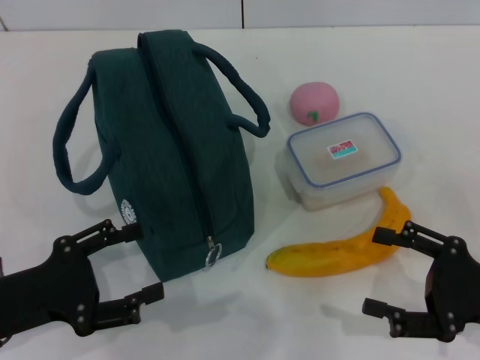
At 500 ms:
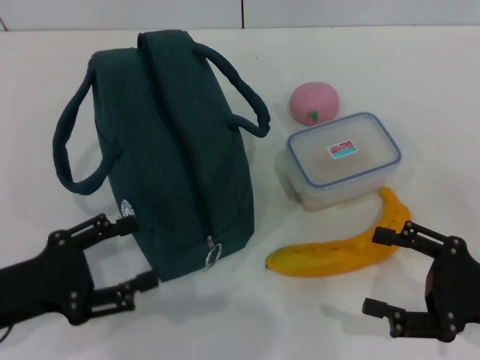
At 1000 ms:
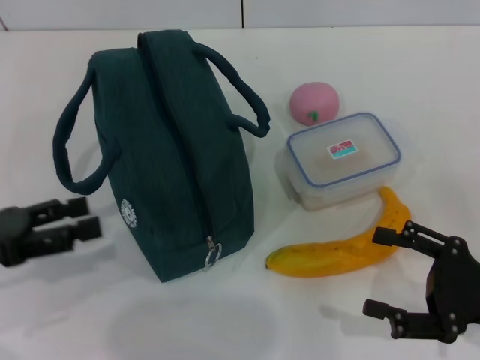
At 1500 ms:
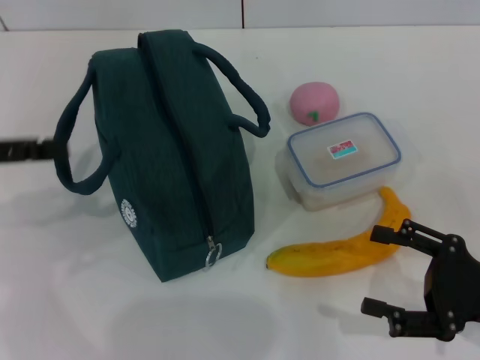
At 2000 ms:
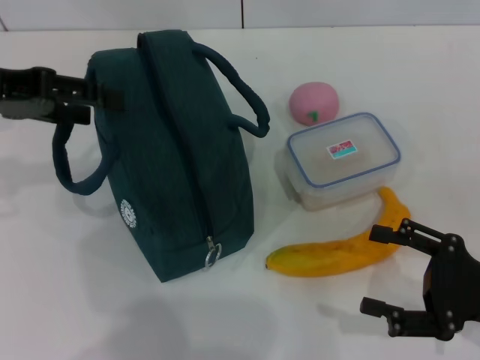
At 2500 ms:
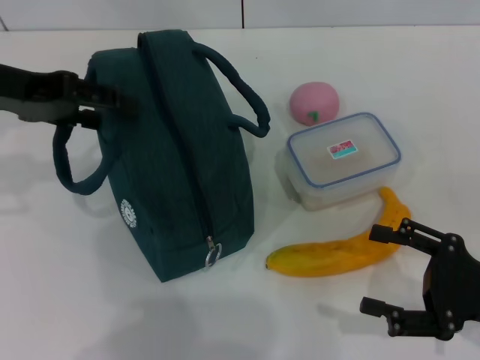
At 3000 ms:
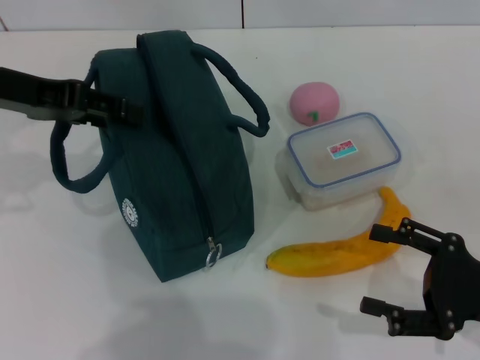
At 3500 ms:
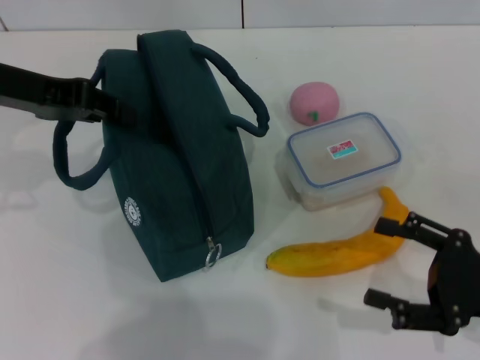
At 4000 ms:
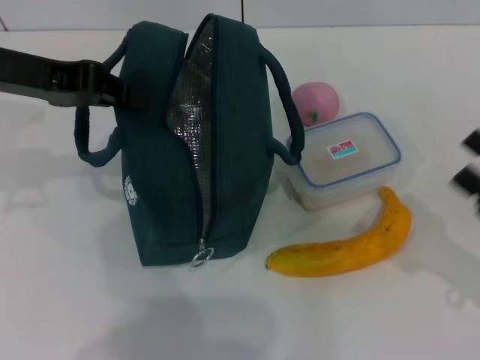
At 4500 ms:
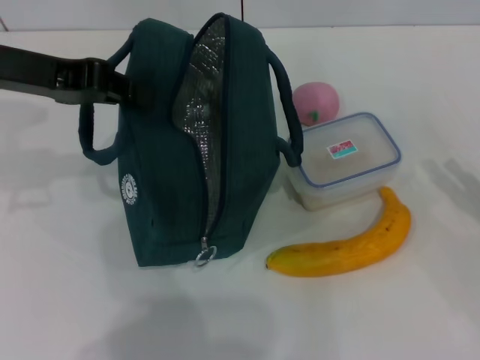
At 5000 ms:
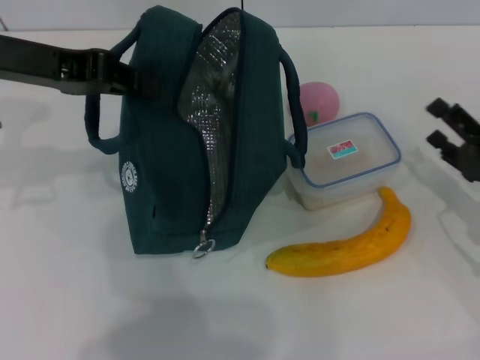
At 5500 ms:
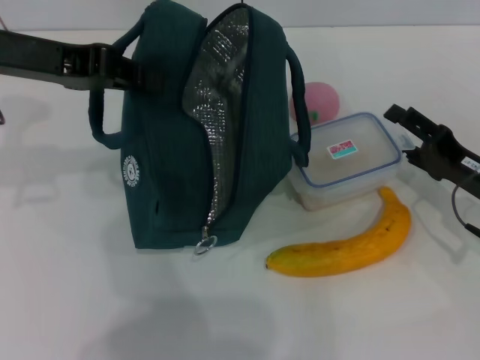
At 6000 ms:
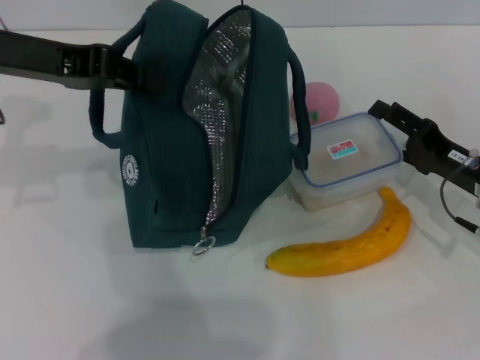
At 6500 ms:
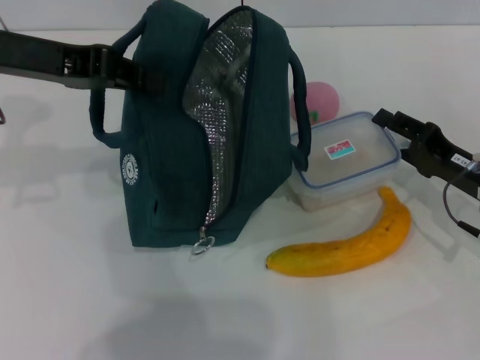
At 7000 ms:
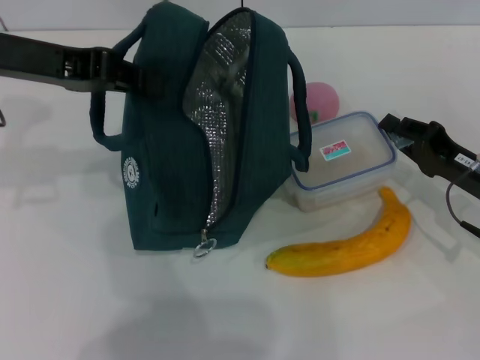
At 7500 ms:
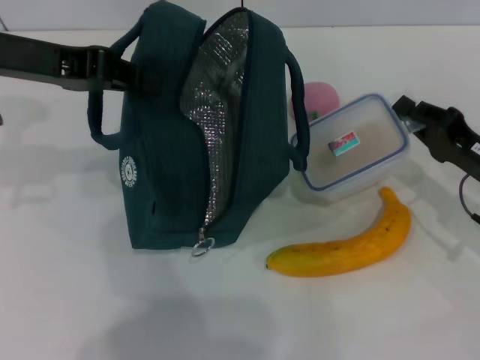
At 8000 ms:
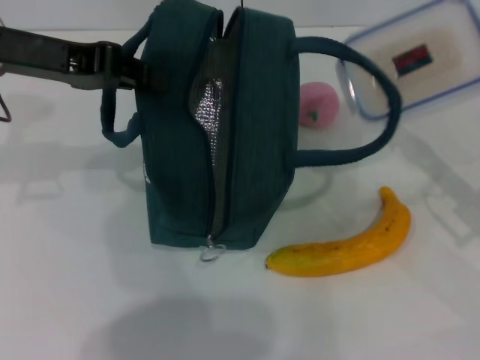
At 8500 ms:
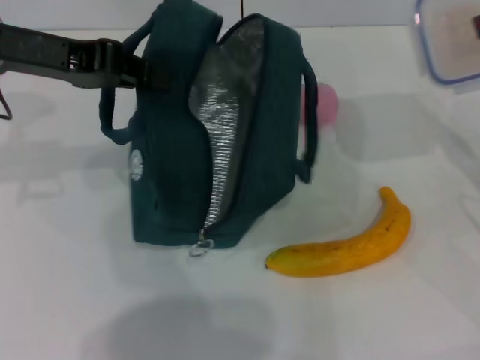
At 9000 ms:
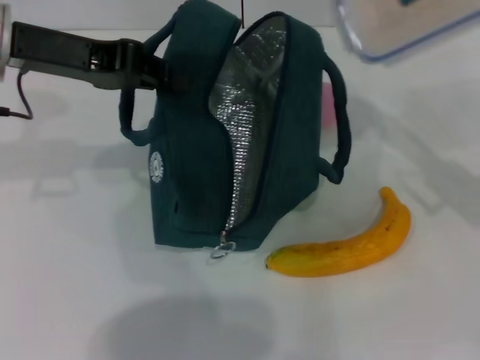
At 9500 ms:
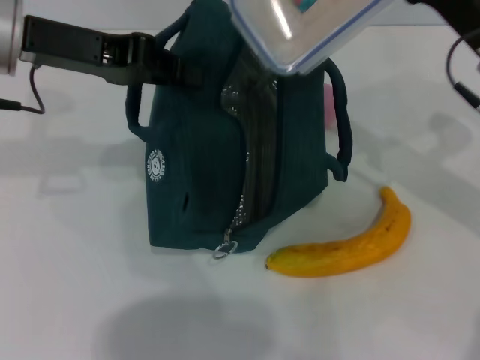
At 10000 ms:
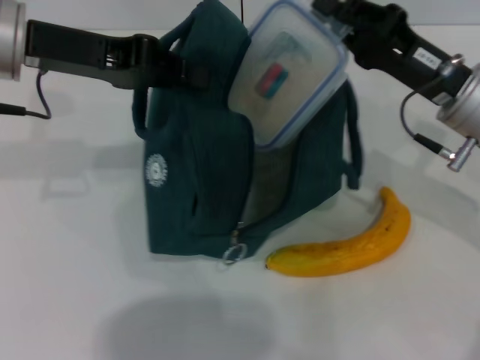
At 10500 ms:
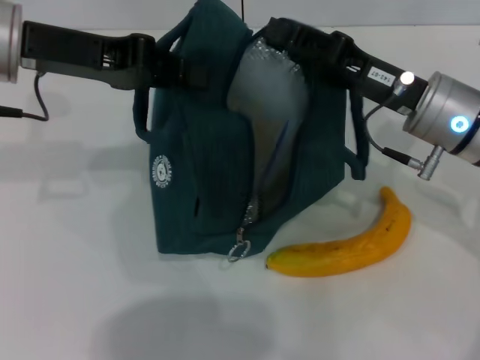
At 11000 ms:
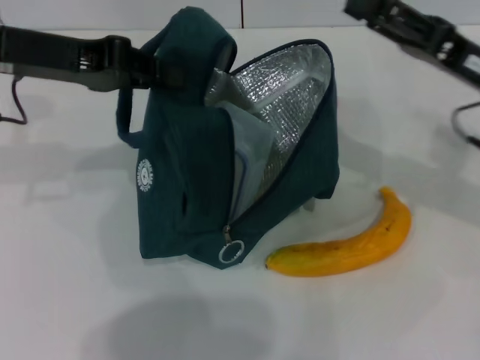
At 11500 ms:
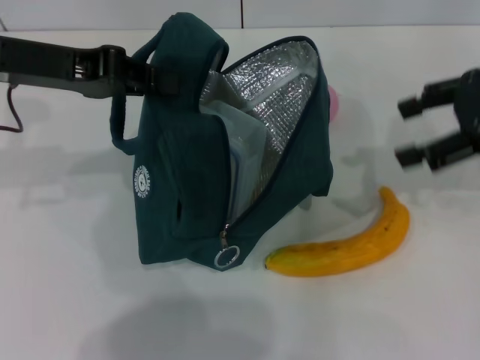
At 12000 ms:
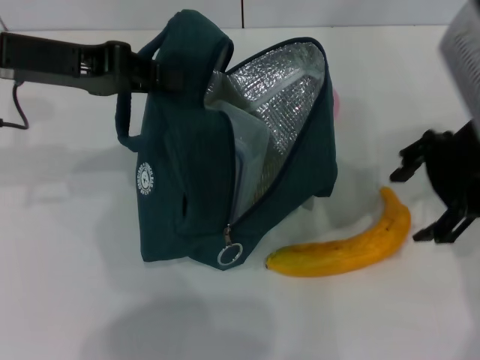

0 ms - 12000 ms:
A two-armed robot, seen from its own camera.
Step, 0 ms - 4500 ms: Hold the lunch bag with your left hand.
Step, 5000 ms - 7000 ms: Pick up the lunch box with your right hand.
Step, 7500 ms - 11000 ms: Place the lunch box into the lunch bag with your right hand.
0 ms - 2000 ms: The left gripper shifts some 20 cm upward and forward.
2000 ms - 4000 ms: The left gripper closes.
4000 ms - 6000 ms: The right gripper travels forward by about 10 cm.
6000 ms - 8000 ms: The right gripper shifts approximately 5 cm upward, and closes up.
8000 ms - 10000 ms: The right gripper moves to the left and forward, approximately 10 cm.
10000 ms - 12000 ms: The right gripper shifts about 10 cm upward, and opens its fingers.

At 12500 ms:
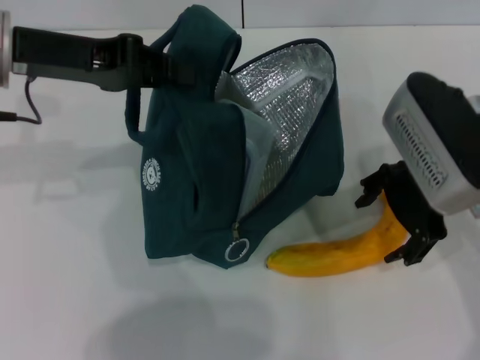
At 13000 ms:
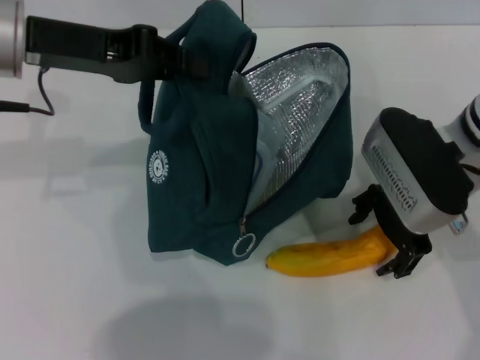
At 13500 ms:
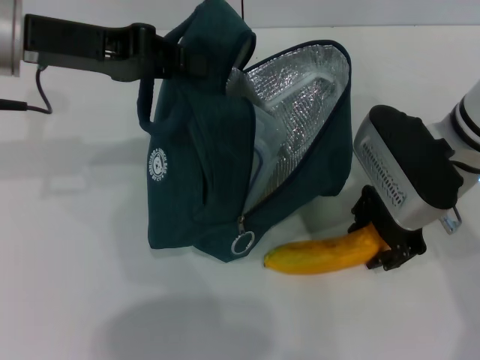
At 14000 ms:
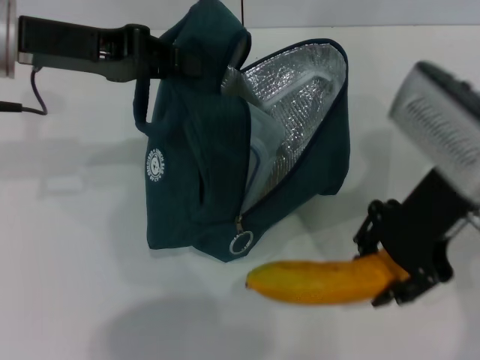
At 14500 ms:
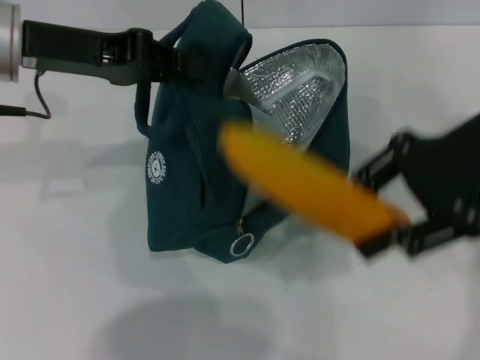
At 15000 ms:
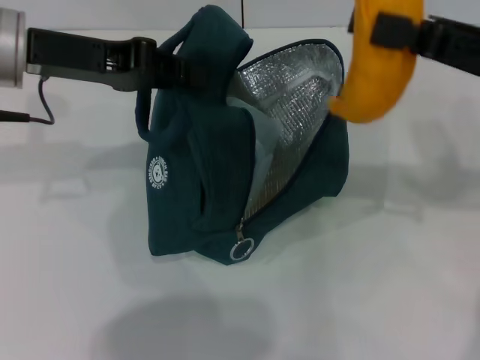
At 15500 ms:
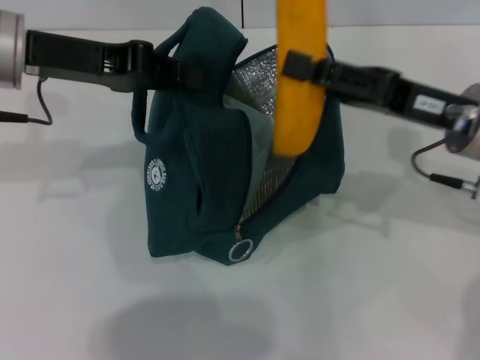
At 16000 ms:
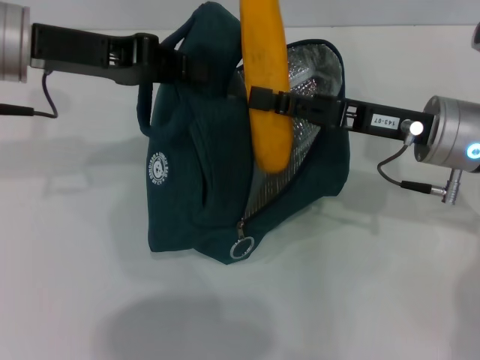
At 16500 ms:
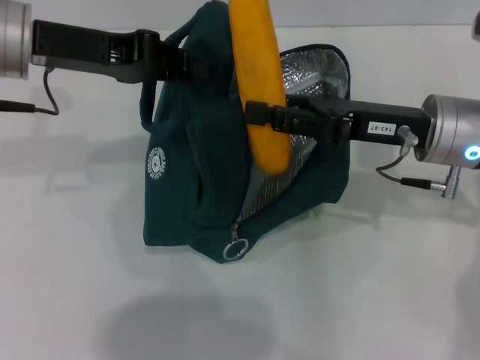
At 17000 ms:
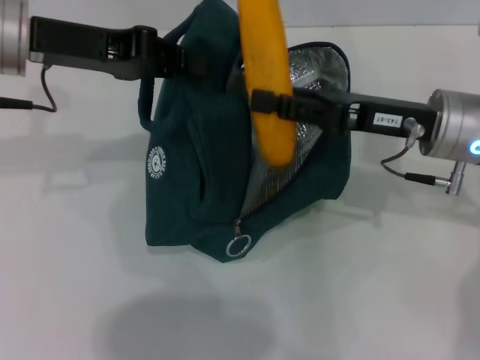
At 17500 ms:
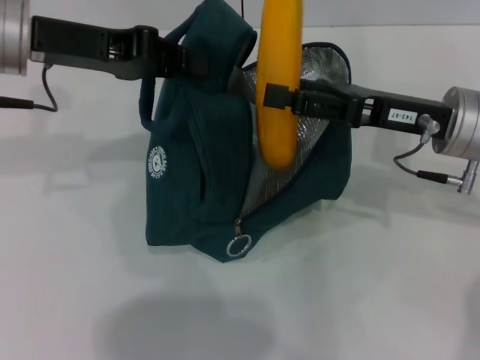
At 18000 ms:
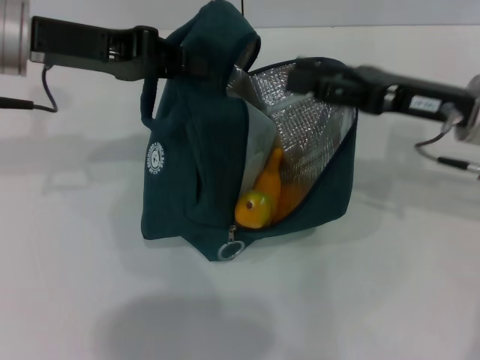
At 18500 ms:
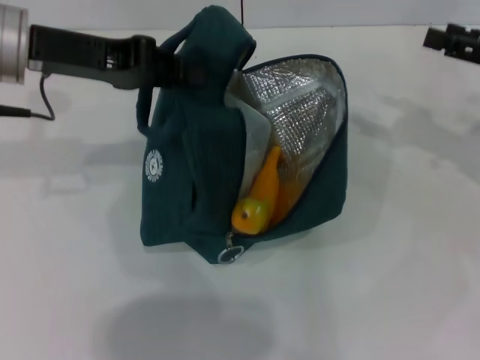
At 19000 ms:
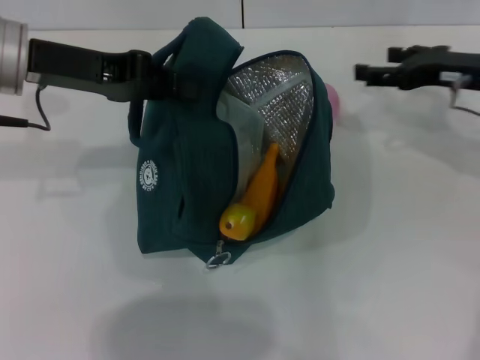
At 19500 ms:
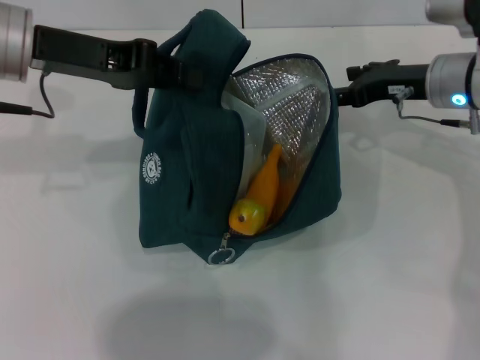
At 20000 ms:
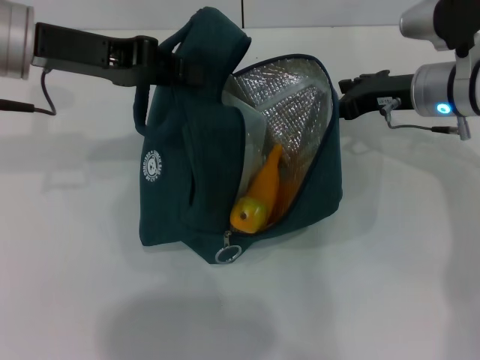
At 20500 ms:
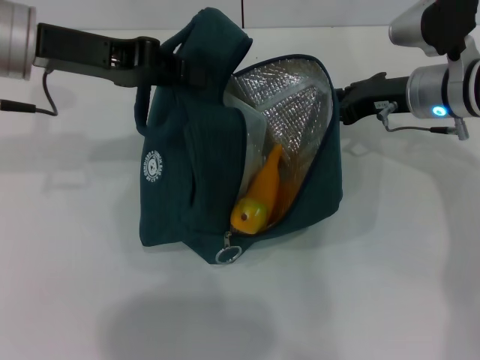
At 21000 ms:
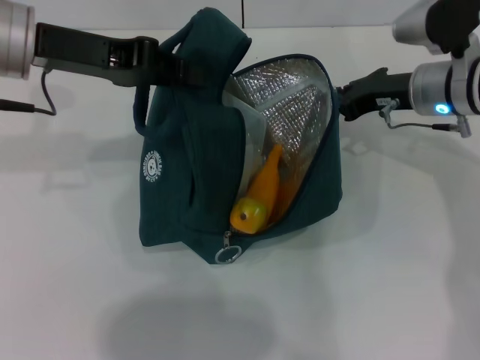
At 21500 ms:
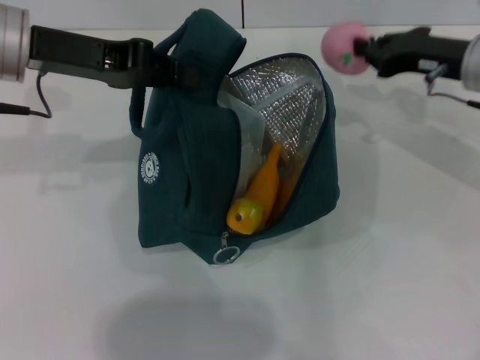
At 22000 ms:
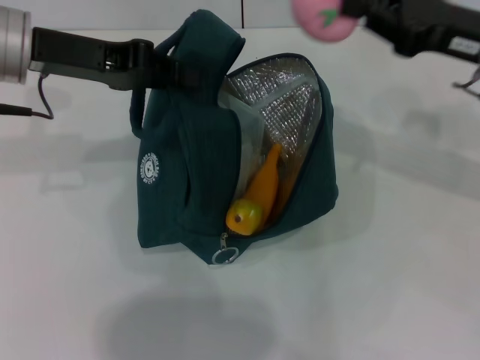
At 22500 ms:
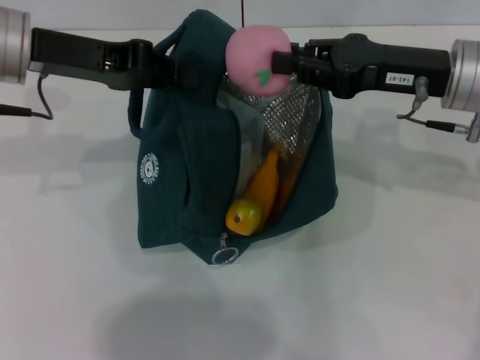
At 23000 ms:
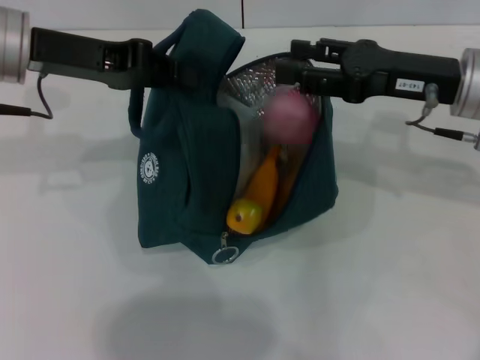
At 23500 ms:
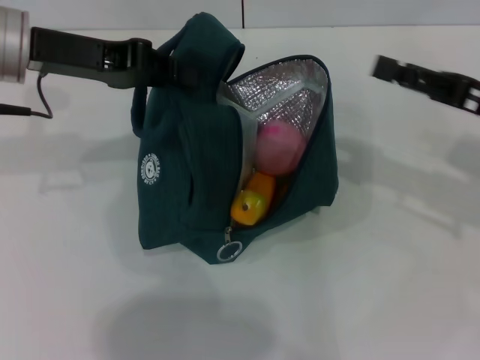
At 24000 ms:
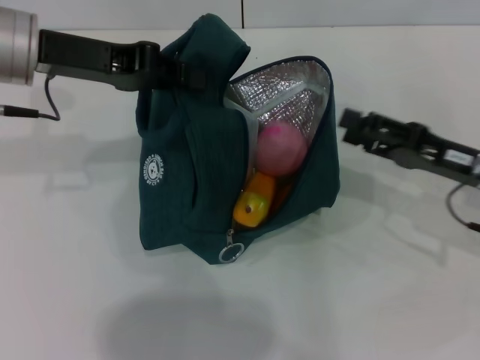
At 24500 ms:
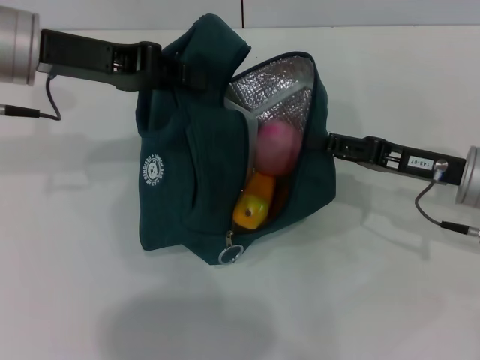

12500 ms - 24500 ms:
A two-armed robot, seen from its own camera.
Step, 14000 ms - 18000 ms: Put the banana into the lunch bag with your right hand.
Step, 18500 ms - 20500 ms: Grab the peach with your right hand.
12500 ms - 14500 ms: The right gripper goes about 5 cm upward, and closes.
14500 ms - 16500 ms: The right gripper heads downward, covering approximately 10 cm.
16500 ms - 18500 ms: The right gripper is displaced to the right by approximately 15 cm, and opens up.
18500 ms - 20500 ms: The right gripper goes about 15 cm to the left and forward, and closes.
20500 ms - 22500 ms: The right gripper heads upward and backward, covering roughly 10 cm, and closes up.
22500 ms - 24500 ms: The right gripper heads downward, covering roughly 10 cm, and opens its fingers.

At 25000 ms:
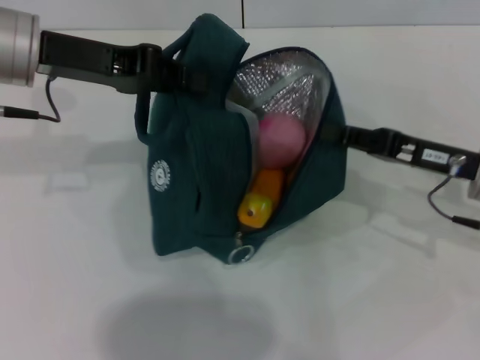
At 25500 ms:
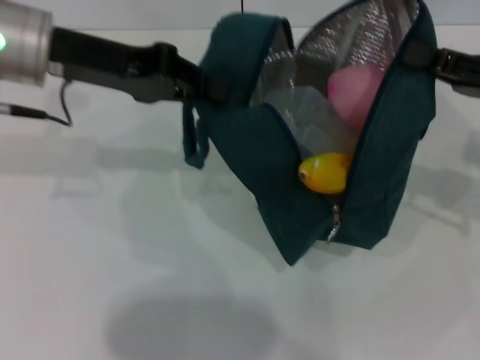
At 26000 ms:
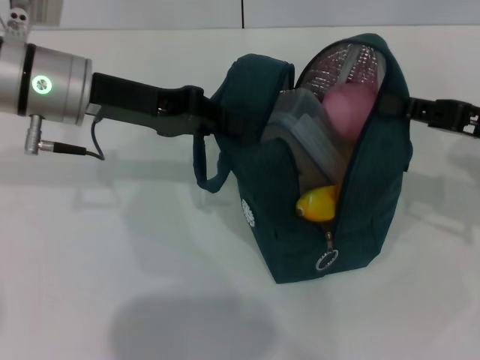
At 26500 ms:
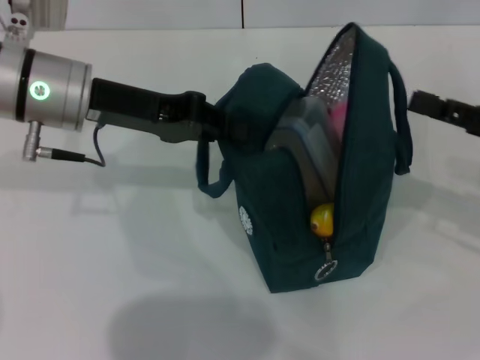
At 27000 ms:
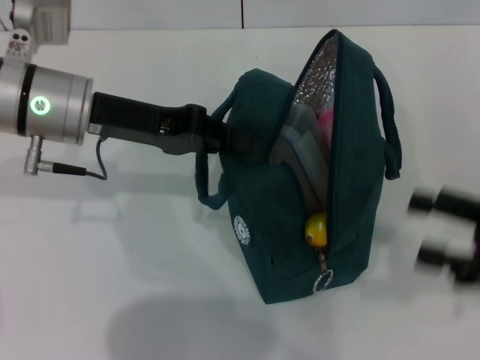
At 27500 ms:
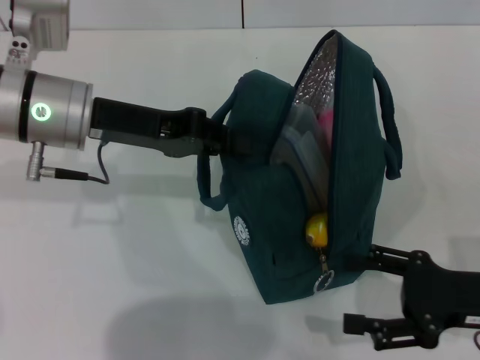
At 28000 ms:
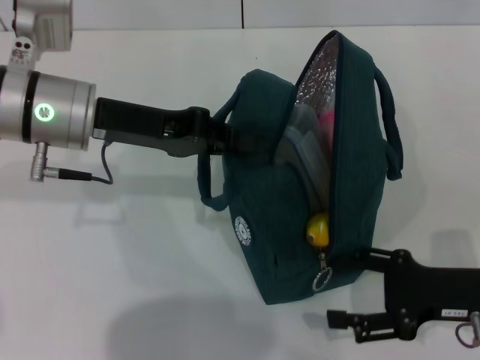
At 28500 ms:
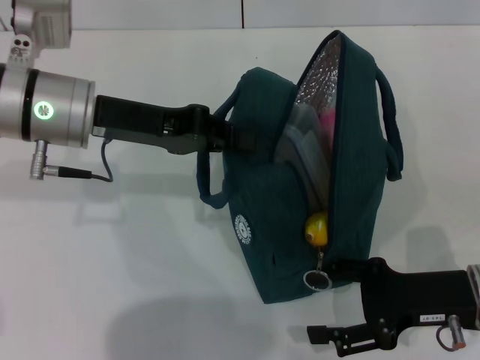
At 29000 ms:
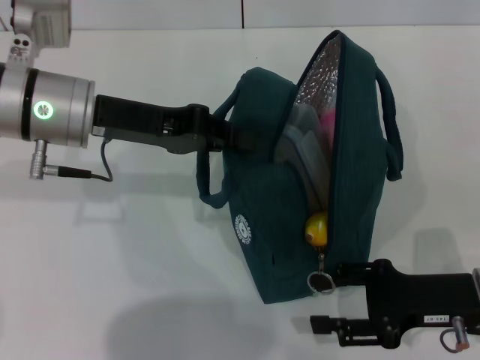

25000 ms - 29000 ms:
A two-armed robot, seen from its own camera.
Step, 25000 ms - 26500 ms: Hold the lunch bag with your right hand.
25000 ms - 27000 ms: The left gripper moves approximately 5 cm. Meanwhile the right gripper is displaced backward and to the right by approximately 10 cm, and opens its fingers.
27000 ms - 29000 ms: The right gripper travels to the left and downward by roughly 10 cm.
